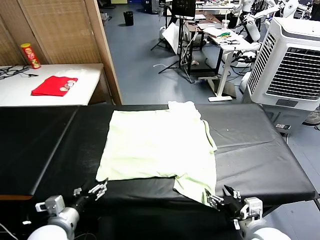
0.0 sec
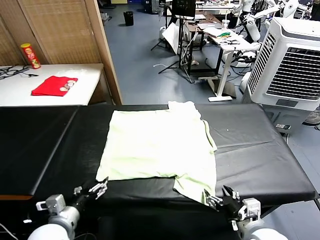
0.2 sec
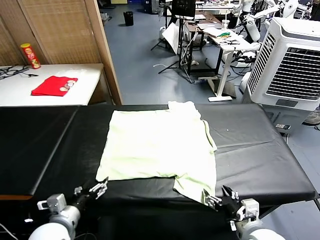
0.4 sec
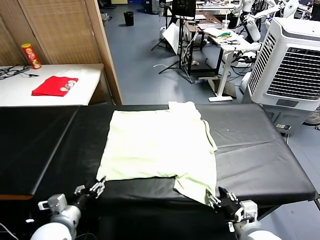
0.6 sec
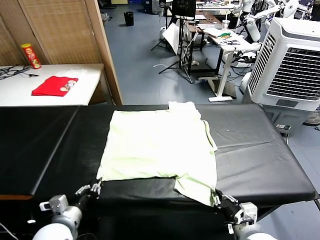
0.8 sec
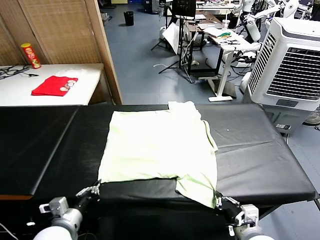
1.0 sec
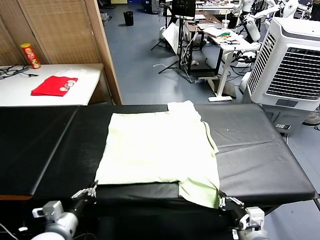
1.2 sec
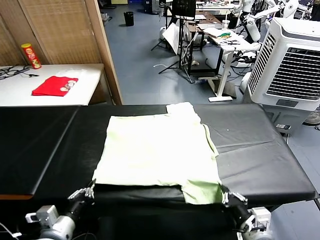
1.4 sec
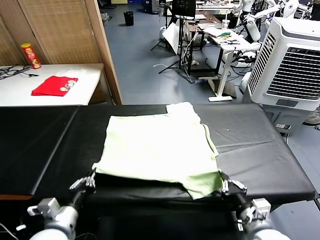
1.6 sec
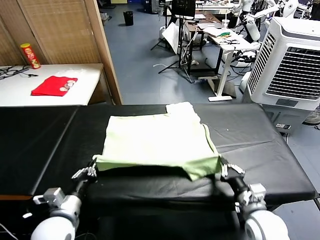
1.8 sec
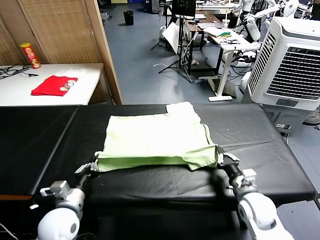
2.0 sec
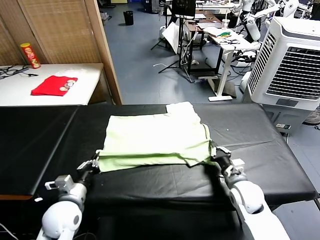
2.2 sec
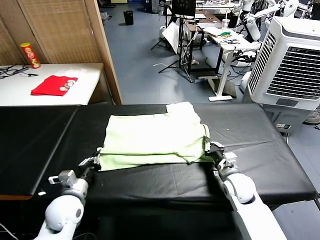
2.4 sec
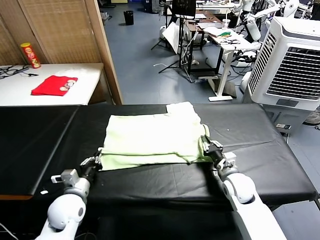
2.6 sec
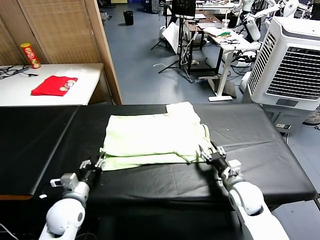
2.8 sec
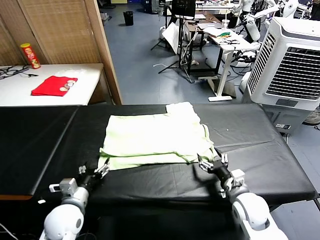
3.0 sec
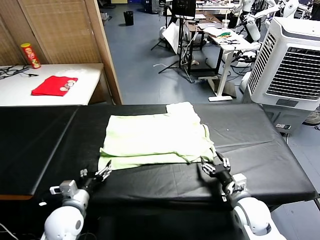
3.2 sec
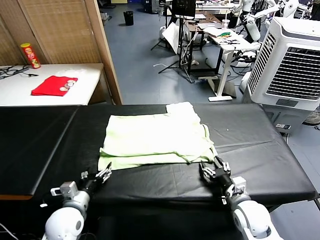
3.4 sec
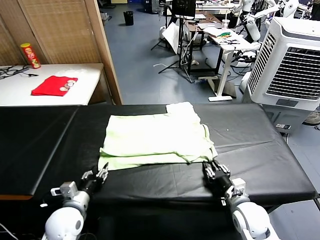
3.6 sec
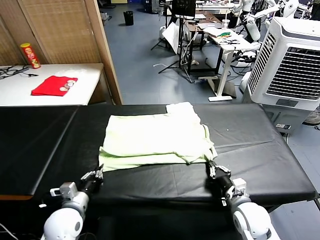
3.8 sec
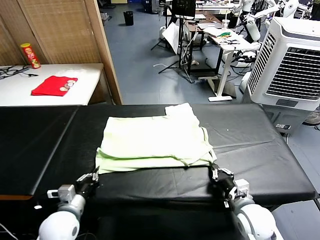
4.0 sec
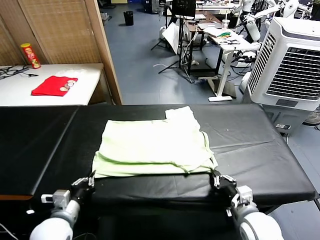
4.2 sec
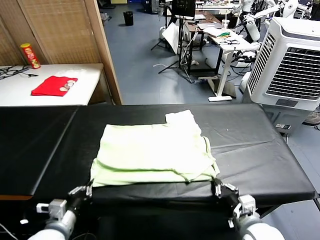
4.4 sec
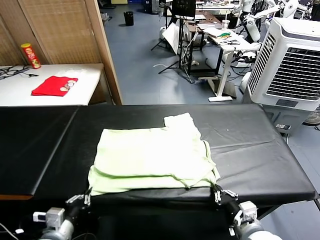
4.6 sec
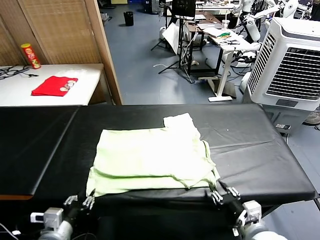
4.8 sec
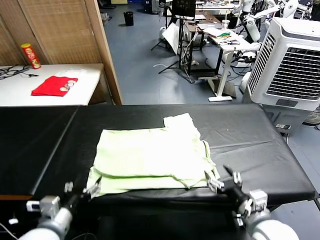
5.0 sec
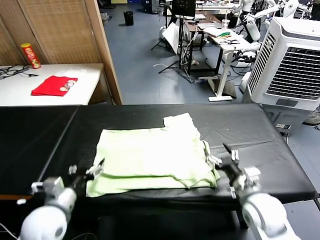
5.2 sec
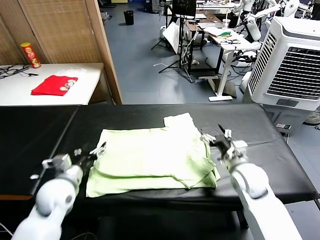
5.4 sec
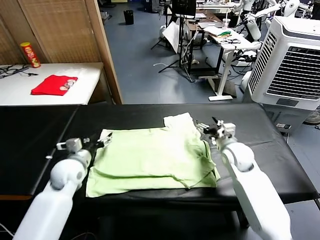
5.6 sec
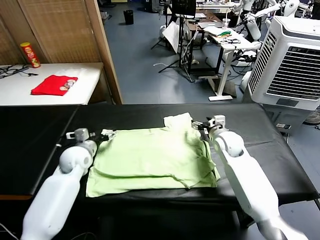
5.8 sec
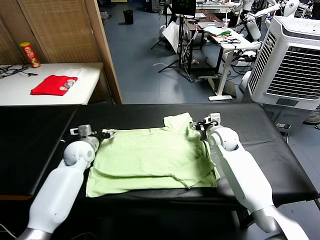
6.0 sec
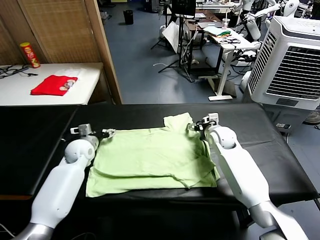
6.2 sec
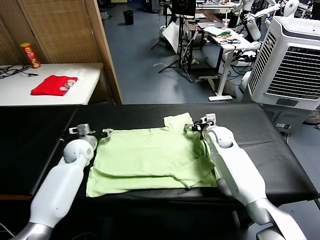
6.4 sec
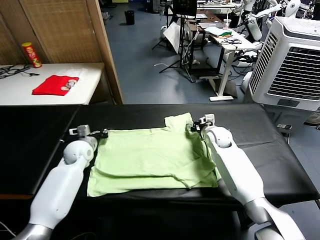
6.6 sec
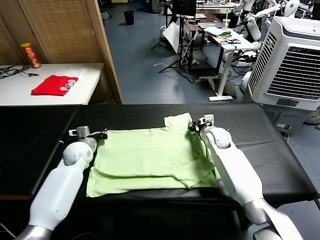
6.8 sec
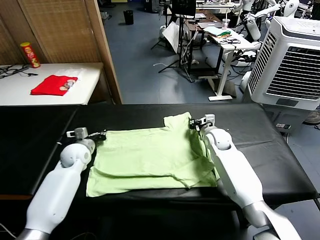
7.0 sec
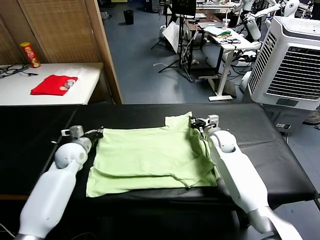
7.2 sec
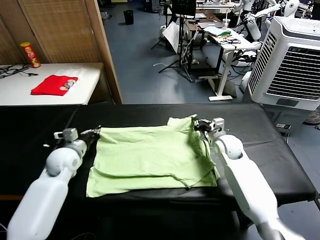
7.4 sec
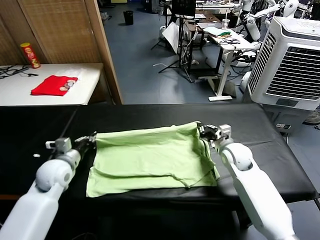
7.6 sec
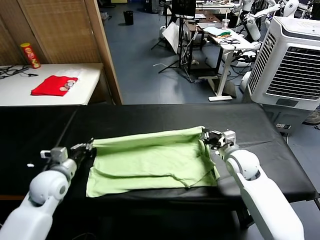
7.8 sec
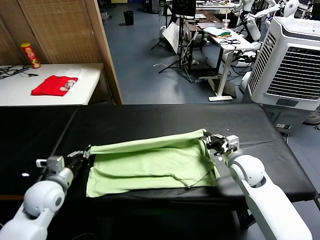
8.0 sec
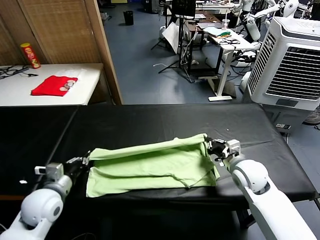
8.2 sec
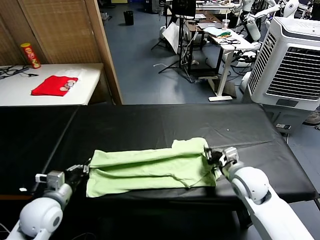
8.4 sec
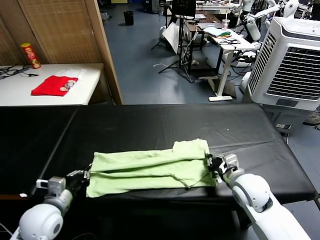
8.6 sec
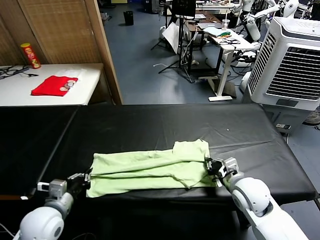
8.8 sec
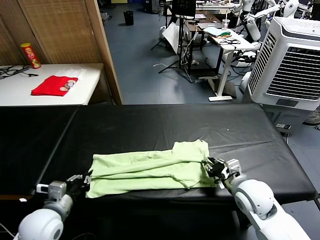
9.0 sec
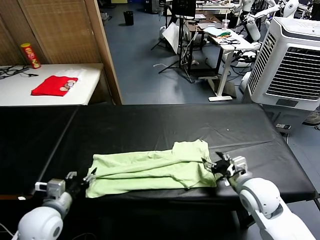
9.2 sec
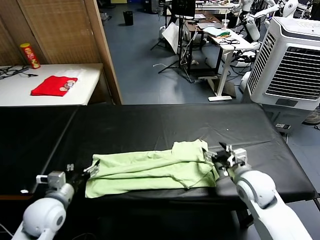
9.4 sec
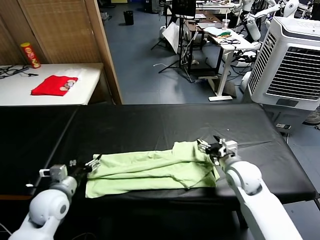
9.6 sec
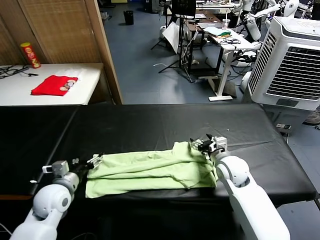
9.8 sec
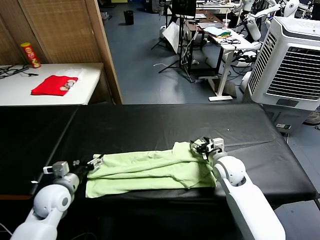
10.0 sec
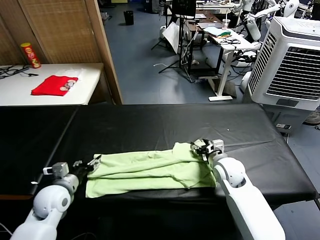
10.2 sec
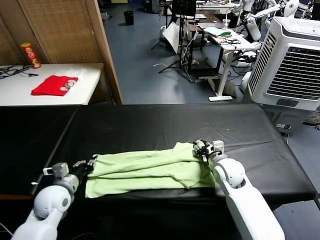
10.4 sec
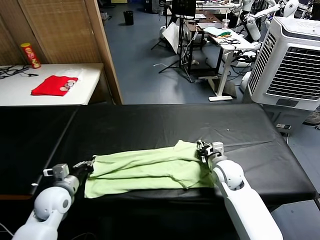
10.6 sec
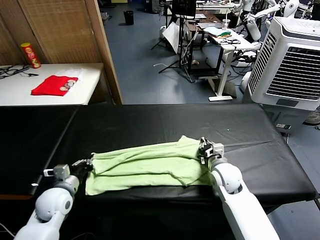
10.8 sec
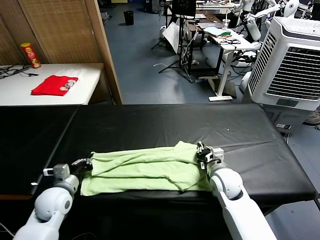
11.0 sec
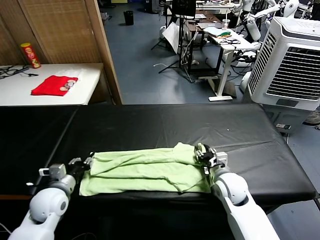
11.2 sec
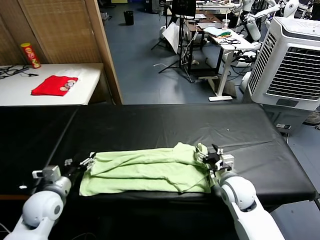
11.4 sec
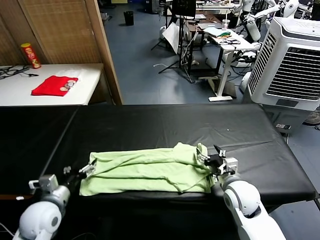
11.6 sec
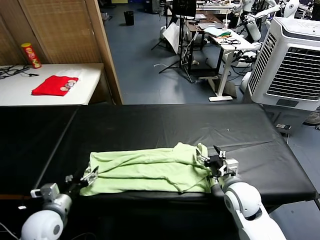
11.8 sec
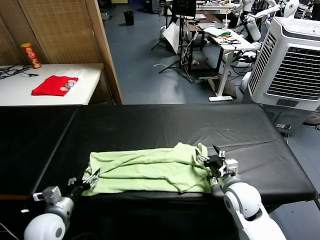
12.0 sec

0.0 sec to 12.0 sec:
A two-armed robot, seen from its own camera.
Task of the whole recording: fold and organize the clothes.
Step, 0.0 sec to 1.0 sec: use both grippers simultaneously to clamp the lower edge of the clothing fabric.
Step, 1.2 sec to 2.8 sec: use both grippers to drag the lower edge of the fabric forward and fold it over the upper edge.
Step, 3.0 sec to 4.8 sec: Drag the clothes downward with both gripper.
Step, 5.0 sec to 6.8 sec: use both grippers simultaneously to clamp the upper edge of the clothing fabric.
Step, 7.0 sec to 9.2 sec: use both grippers to drag the upper edge of the fabric backward and fold it over the lower edge.
1.6 sec to 3.0 sec: The right gripper opens up; the left gripper shifts some 10 cm forward and downward, and opens.
3.0 sec to 4.4 sec: The grippers both shift backward by approximately 10 cm. The right gripper closes, while the left gripper closes its fingers.
4.4 sec to 6.0 sec: The two grippers go roughly 35 cm forward. The left gripper opens up. The right gripper opens up.
6.0 sec to 7.6 sec: The two grippers go roughly 10 cm backward. The left gripper closes up. Meanwhile the right gripper closes its fingers.
7.6 sec to 9.0 sec: Both grippers move backward, some 15 cm. The right gripper opens its fingers.
9.0 sec to 10.4 sec: The right gripper moves forward and downward, some 10 cm, and opens and closes again, while the left gripper is displaced forward by roughly 10 cm, and opens, then closes again.
10.4 sec to 12.0 sec: Both grippers move backward, roughly 10 cm. The right gripper opens its fingers. Meanwhile the left gripper opens.

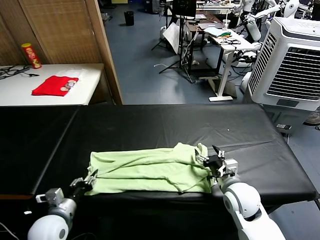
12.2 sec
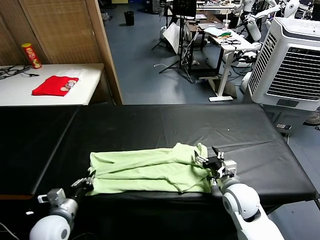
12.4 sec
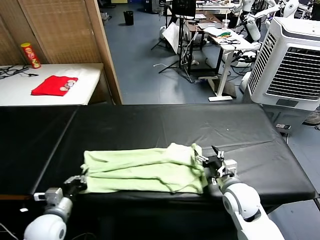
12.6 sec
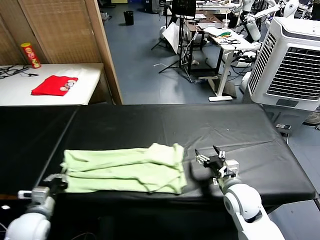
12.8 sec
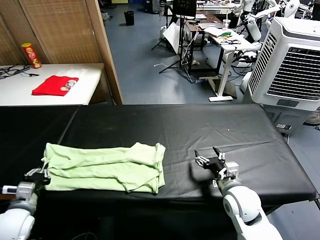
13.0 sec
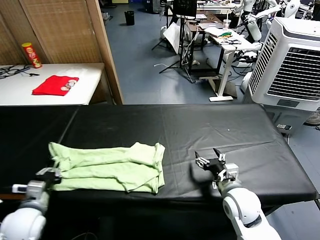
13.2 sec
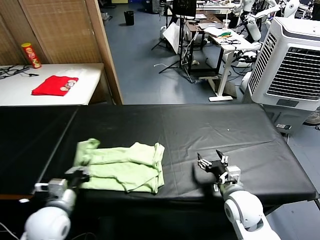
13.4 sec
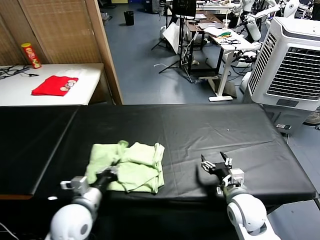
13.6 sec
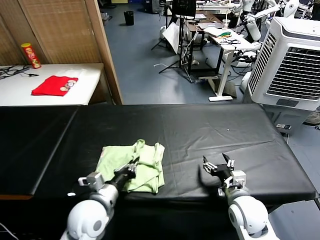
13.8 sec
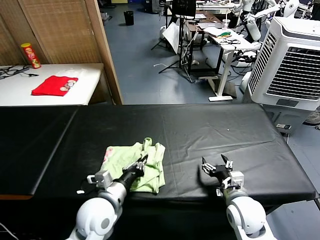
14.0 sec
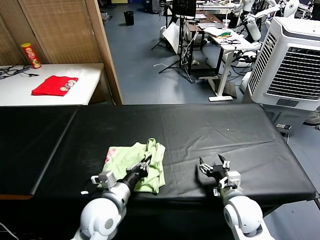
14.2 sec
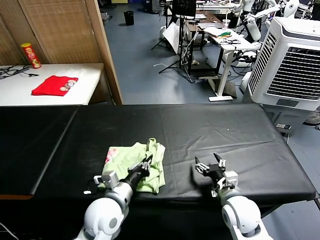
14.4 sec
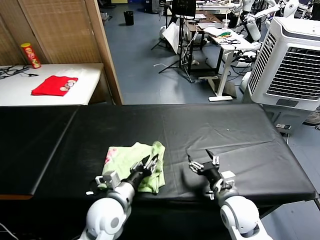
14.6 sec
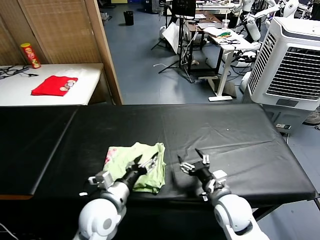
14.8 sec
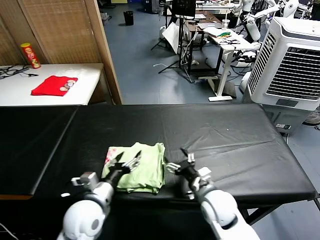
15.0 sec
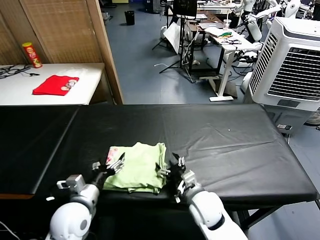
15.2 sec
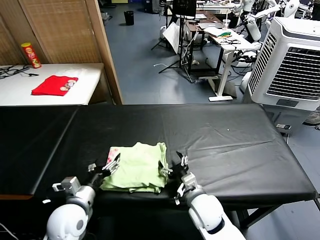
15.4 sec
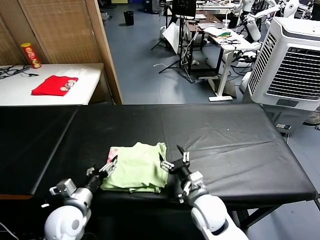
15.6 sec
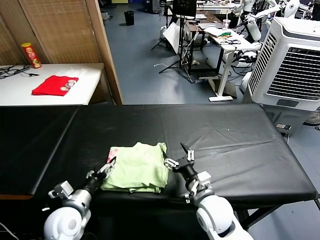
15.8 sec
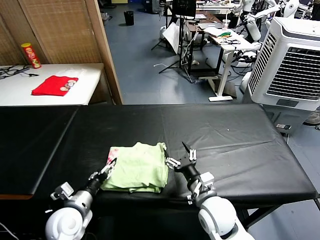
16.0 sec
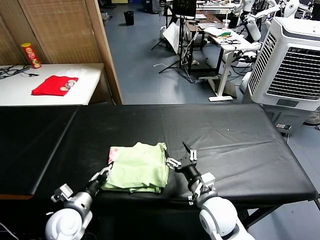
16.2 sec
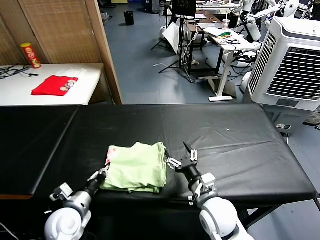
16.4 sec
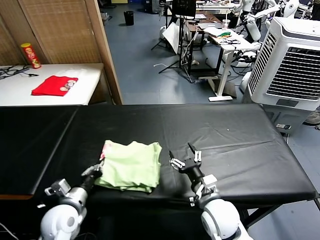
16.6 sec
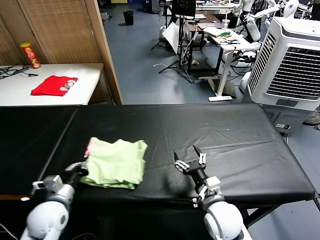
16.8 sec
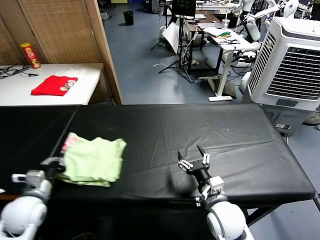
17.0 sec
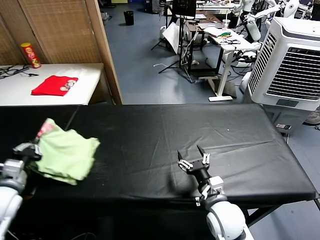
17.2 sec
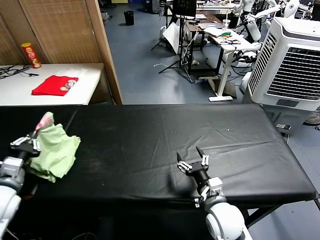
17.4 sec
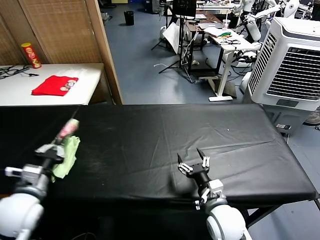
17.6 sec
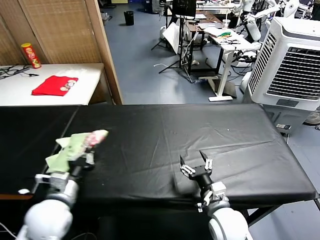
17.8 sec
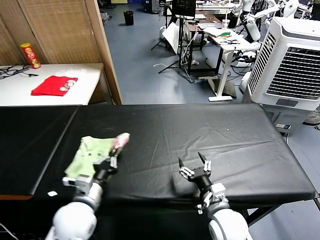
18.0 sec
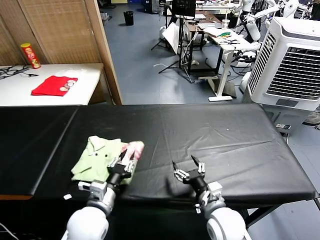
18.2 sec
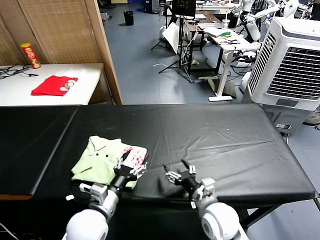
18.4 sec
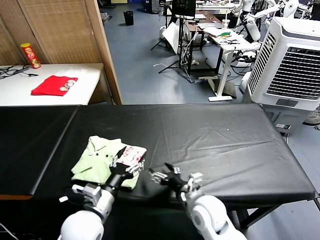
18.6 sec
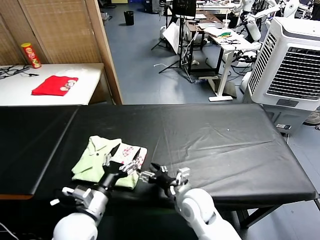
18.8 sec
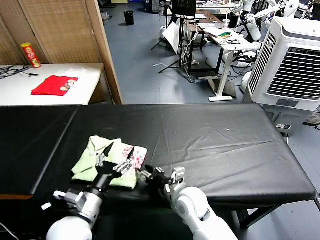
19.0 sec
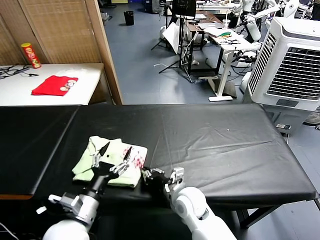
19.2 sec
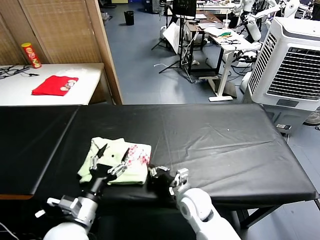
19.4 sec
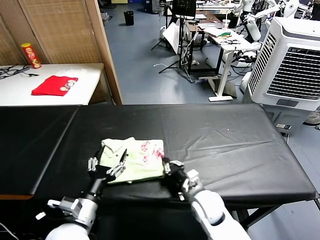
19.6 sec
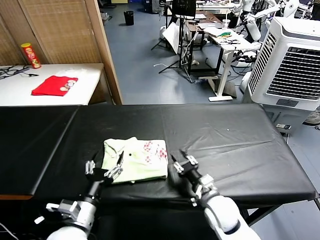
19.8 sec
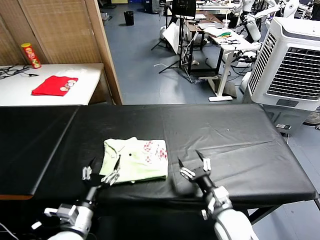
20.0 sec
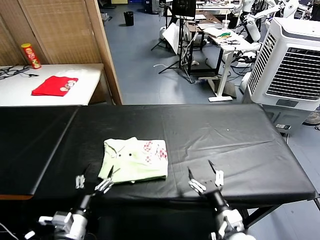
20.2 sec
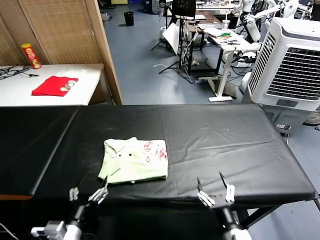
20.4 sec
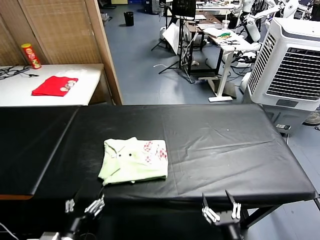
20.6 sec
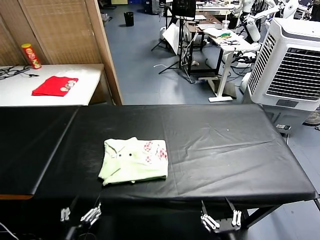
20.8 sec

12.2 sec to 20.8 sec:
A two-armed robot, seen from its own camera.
Task of the whole recording: fold and organize the clothes.
Step, 12.4 sec to 14.6 sec: use the left gripper to drag the left edge of the fabric to the left and folds it over the right edge.
Step, 15.0 sec to 18.2 sec: Flip the folded clothes over with left gripper.
Step, 18.4 sec to 19.6 sec: Drag the clothes to the center of the table.
12.2 sec to 13.6 sec: The left gripper goes approximately 10 cm to the right and upward, and closes.
13.6 sec to 15.0 sec: The left gripper opens up. Meanwhile the right gripper heads to the left, covering roughly 10 cm.
15.0 sec to 16.6 sec: The left gripper shifts about 10 cm to the left, and closes.
16.6 sec to 18.0 sec: The left gripper heads upward, covering about 5 cm, and moves some 15 cm to the left and comes back.
18.0 sec to 19.4 sec: The right gripper travels to the left and forward by some 10 cm, and closes up. The left gripper opens.
19.4 sec to 20.8 sec: The left gripper travels backward by roughly 10 cm; the right gripper heads backward and to the right, covering approximately 25 cm, and opens its fingers.
